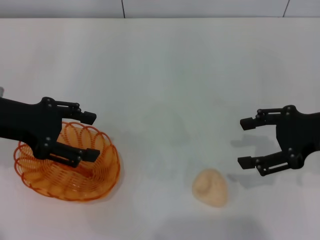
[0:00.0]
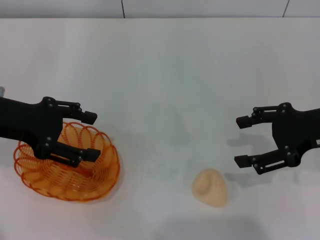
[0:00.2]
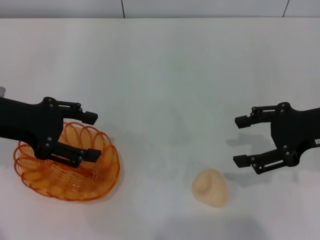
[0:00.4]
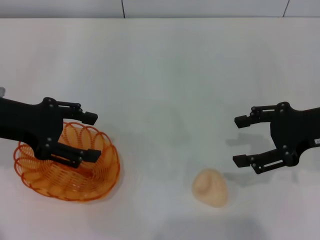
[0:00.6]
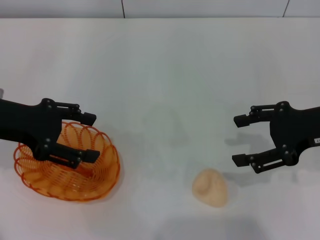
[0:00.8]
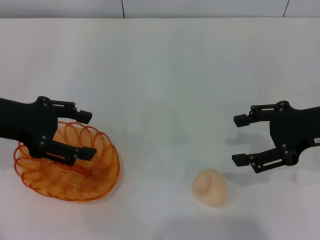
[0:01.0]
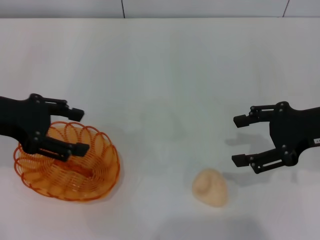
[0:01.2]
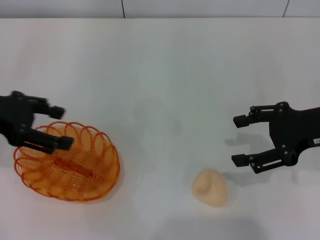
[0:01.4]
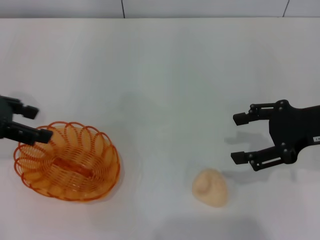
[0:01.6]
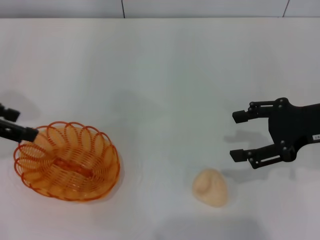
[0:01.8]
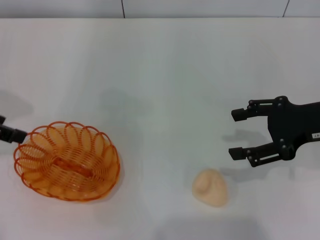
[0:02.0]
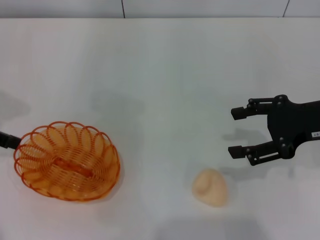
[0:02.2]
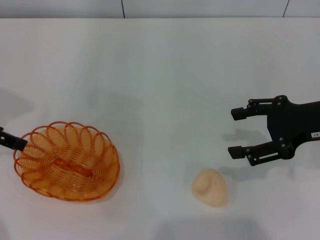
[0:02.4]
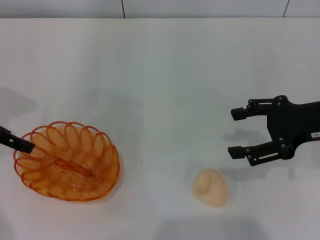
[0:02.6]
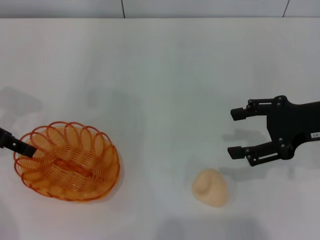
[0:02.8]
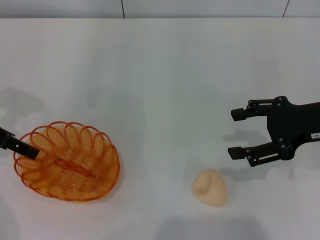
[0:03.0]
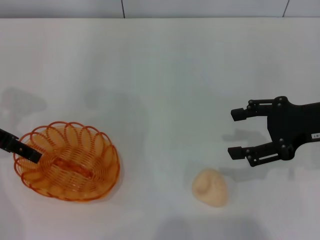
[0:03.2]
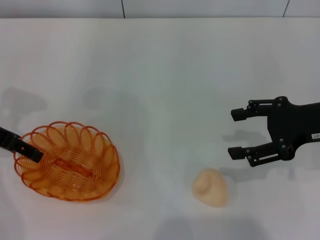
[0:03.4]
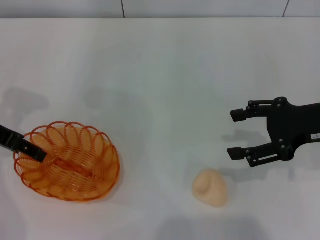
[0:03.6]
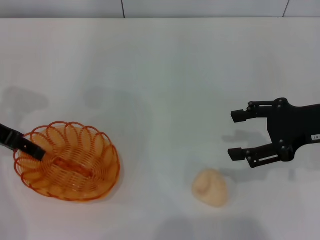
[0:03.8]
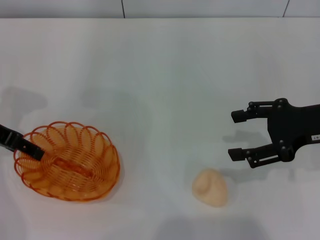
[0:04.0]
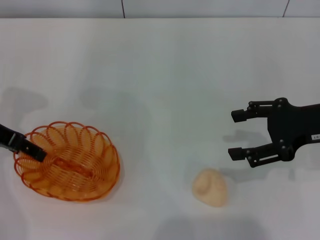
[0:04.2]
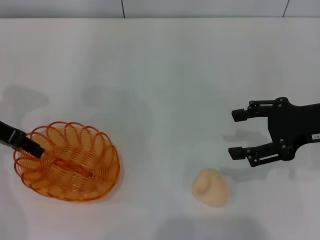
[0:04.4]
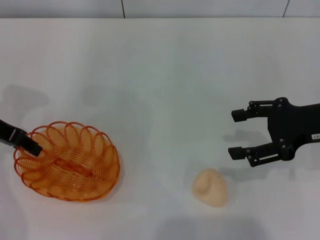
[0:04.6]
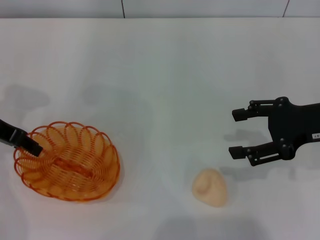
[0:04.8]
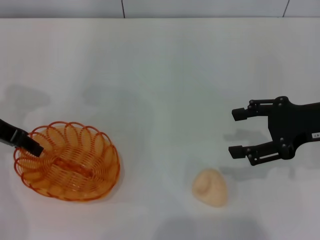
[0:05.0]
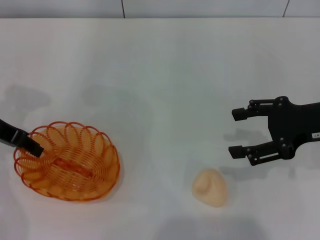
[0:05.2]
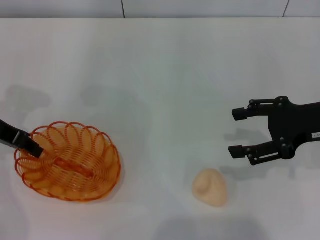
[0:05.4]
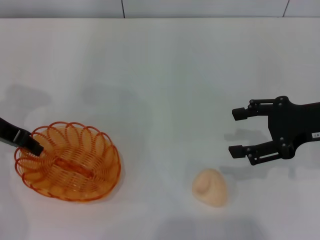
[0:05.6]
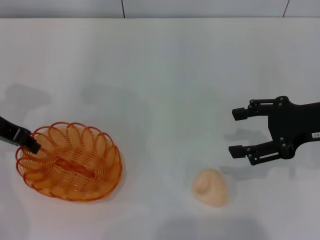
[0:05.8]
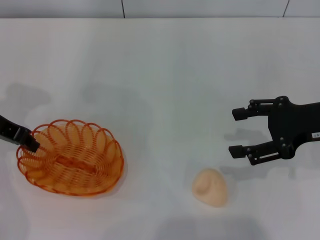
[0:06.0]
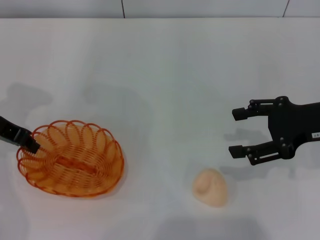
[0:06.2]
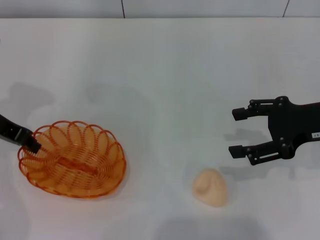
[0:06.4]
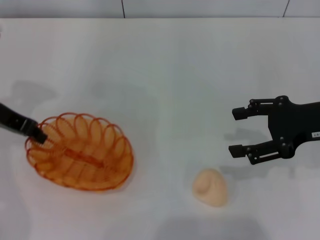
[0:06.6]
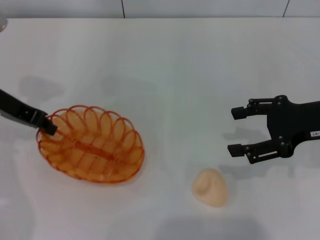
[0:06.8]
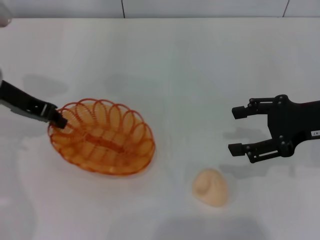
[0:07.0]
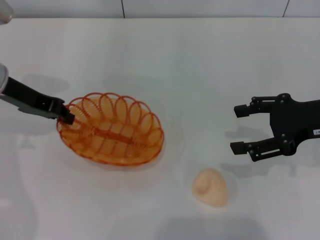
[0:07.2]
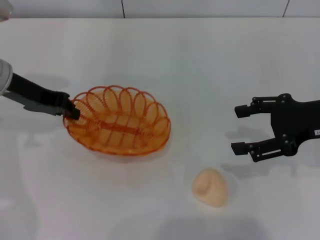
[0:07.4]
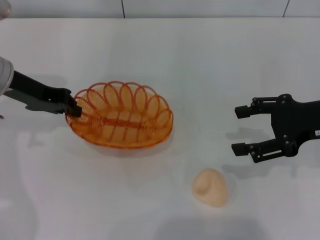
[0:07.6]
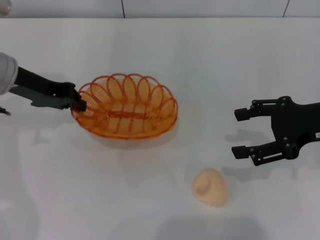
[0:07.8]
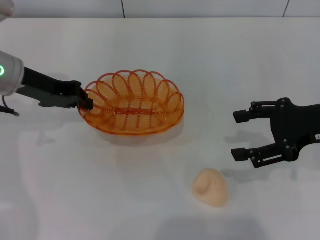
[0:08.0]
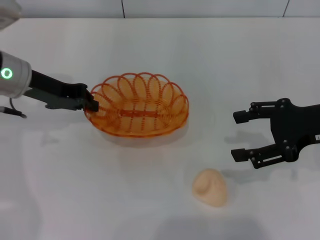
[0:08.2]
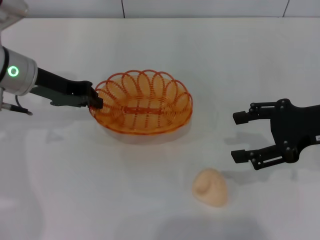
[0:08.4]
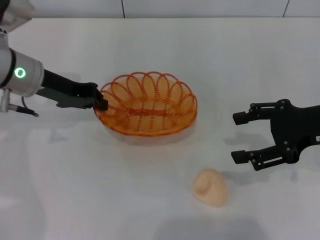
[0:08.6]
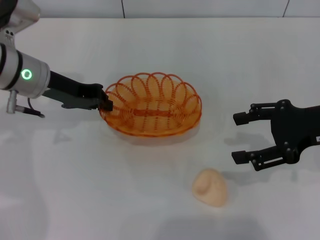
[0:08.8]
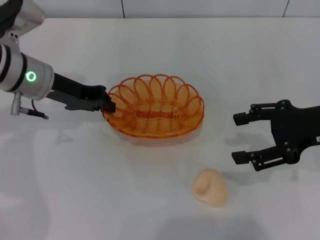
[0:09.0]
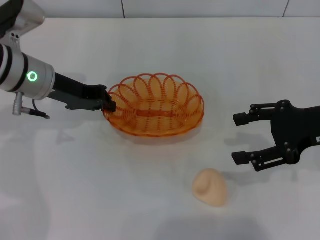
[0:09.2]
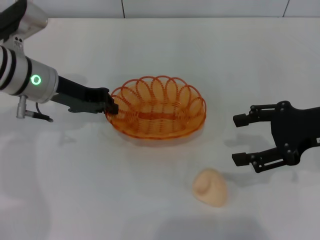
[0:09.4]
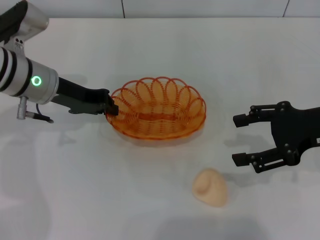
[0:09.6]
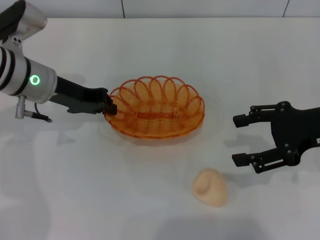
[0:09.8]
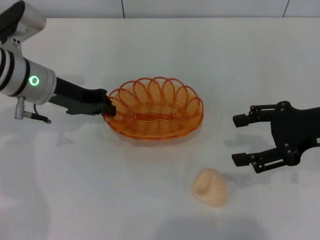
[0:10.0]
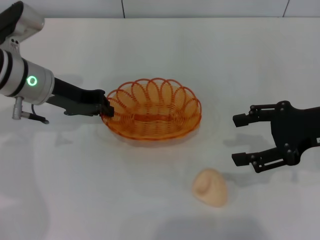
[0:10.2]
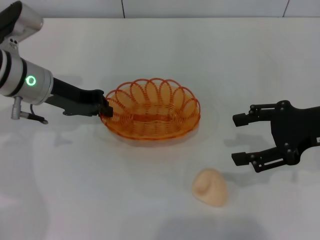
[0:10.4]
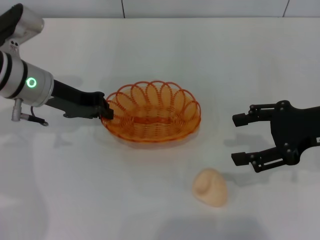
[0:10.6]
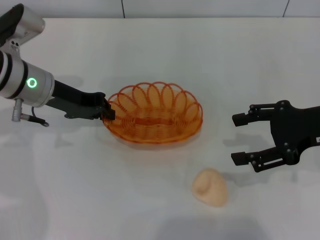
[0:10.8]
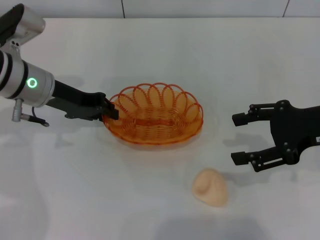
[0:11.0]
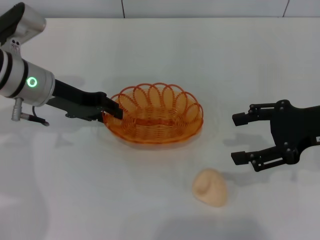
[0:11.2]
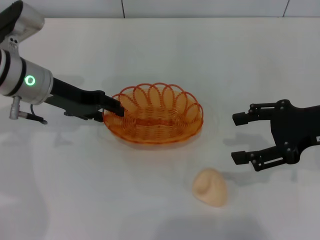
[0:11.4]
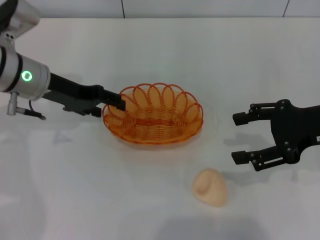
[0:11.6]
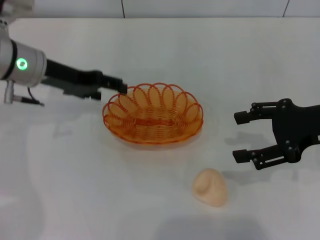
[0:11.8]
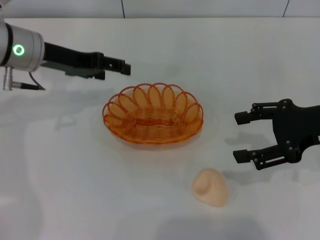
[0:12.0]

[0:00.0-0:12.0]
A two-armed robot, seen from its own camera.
Step, 0:00.0 to 0:07.4: Pick up the basket with the left gripper.
Step, 0:07.6 to 0:12.0: Place the basket in the center of view with the left gripper.
0:00.0 to 0:01.6: The left gripper ends up some 5 cm from where it was.
0:03.0 to 0:04.4: The grippers move only a little.
0:04.4 to 0:06.0: The left gripper closes.
0:07.6 to 0:09.0: The left gripper moves roughly 5 cm.
0:09.0 to 0:10.4: The two grippers keep their place.
0:10.4 to 0:12.0: The left gripper opens its fingers.

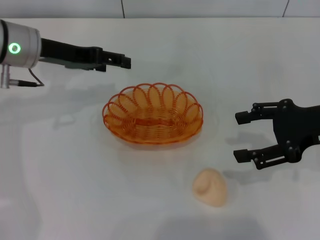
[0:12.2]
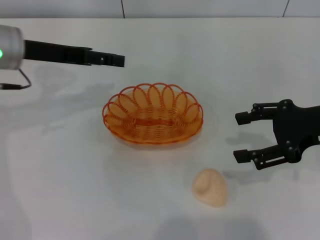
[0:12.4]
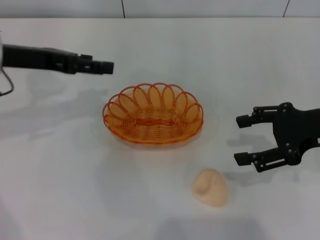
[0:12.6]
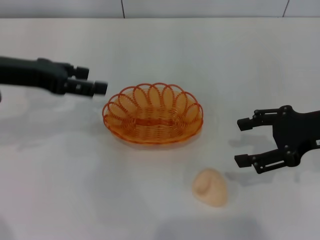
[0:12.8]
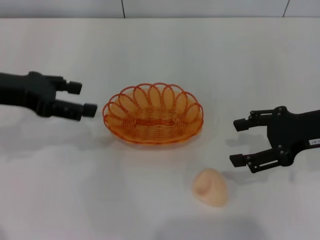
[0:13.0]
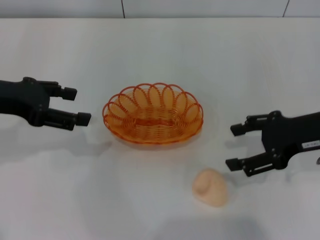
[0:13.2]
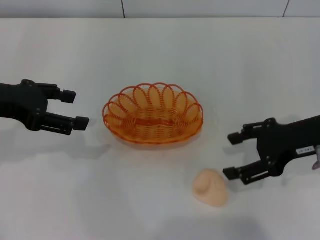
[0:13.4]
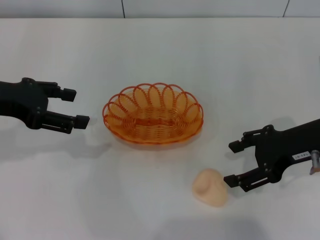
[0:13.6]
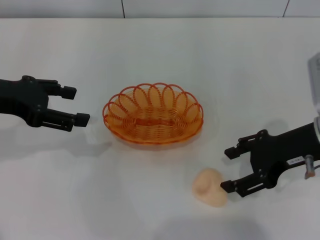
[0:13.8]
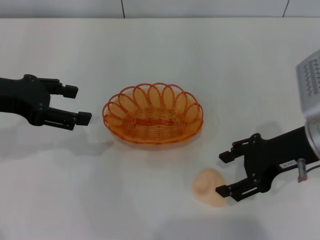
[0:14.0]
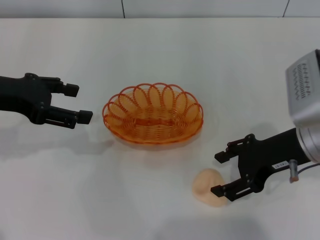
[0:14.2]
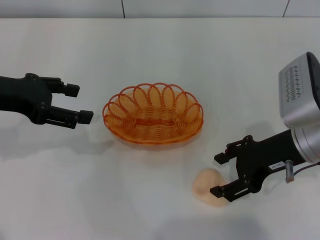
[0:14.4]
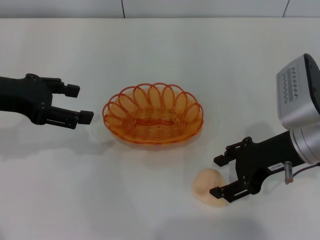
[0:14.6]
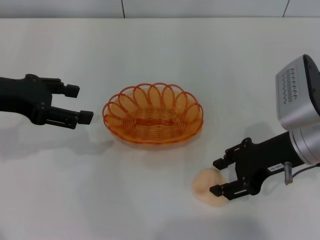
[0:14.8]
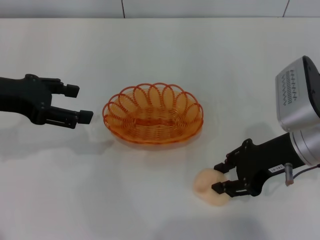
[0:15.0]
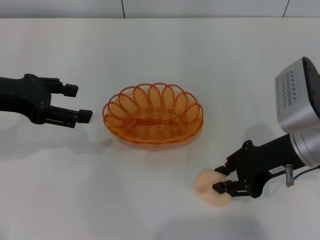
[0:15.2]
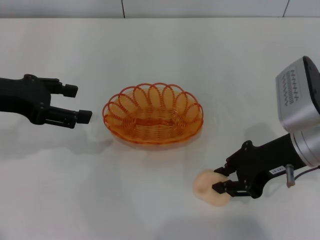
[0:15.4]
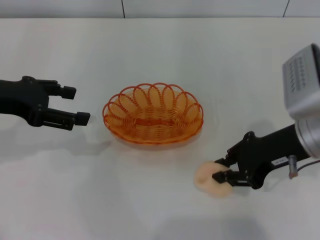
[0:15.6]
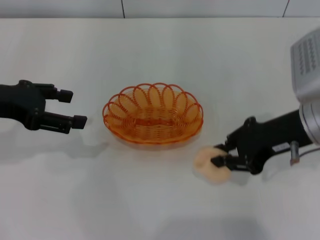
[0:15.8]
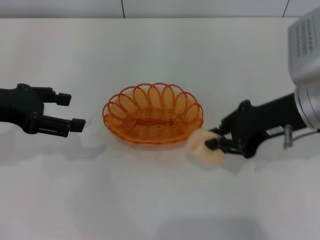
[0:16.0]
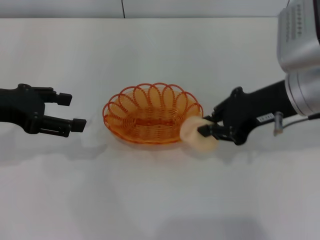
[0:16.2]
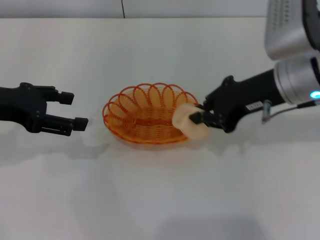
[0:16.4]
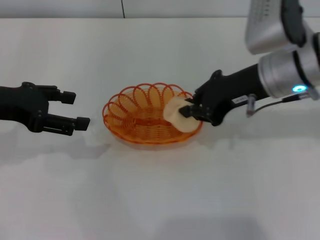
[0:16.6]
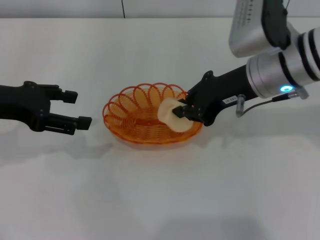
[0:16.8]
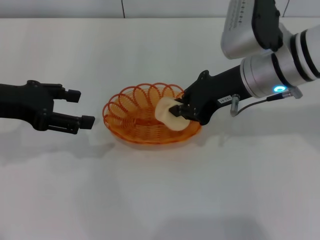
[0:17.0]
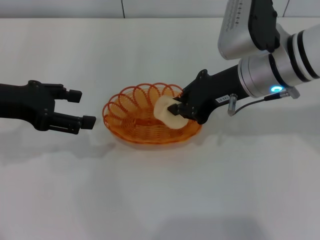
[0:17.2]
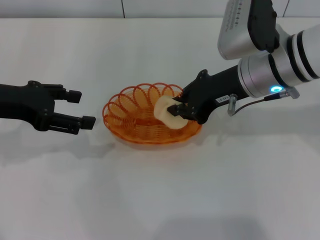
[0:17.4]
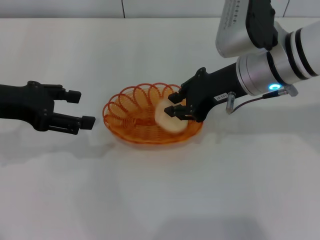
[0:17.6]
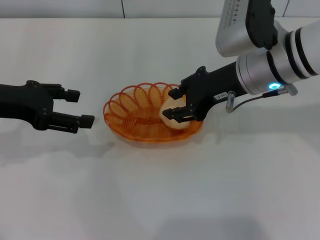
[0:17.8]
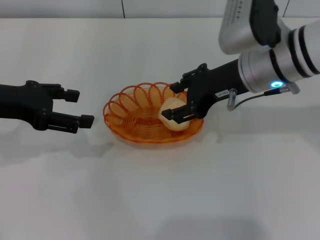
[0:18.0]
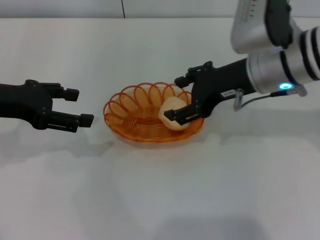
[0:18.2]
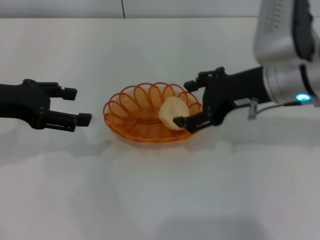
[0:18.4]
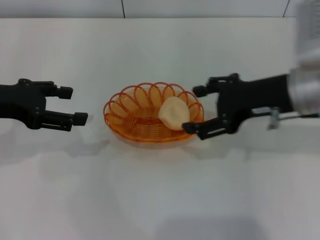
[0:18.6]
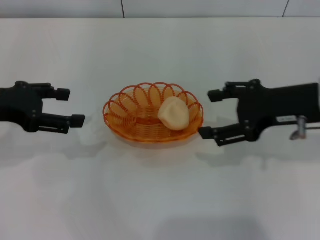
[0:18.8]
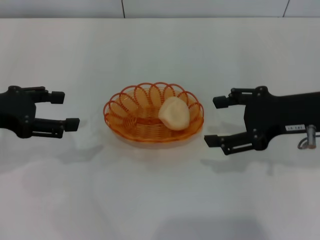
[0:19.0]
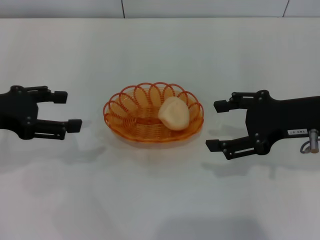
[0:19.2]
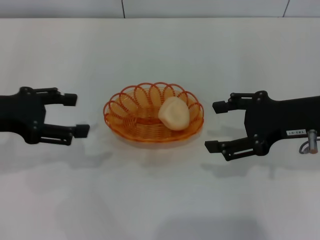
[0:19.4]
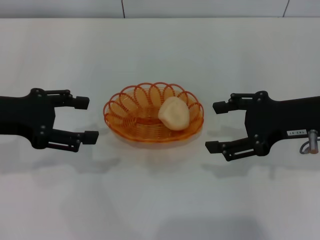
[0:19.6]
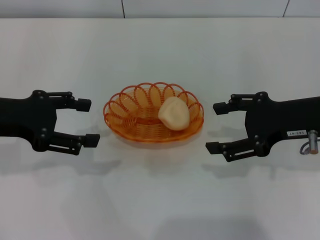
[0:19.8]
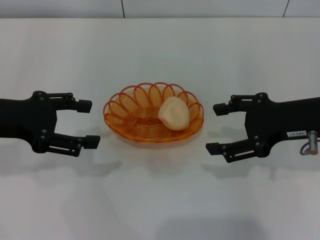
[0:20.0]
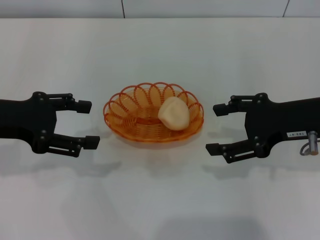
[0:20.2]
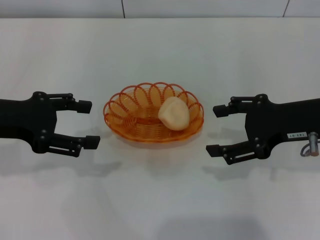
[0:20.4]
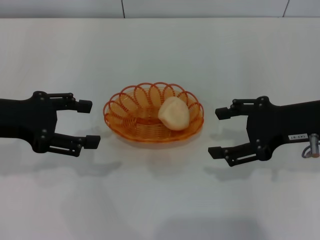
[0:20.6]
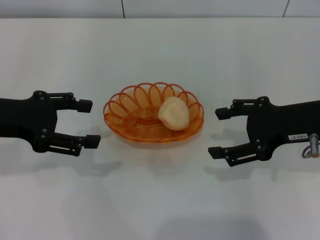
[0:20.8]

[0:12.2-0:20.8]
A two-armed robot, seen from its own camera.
Step, 0:12.2 to 0:15.8: Pick up the egg yolk pastry with the right gripper.
Step, 0:16.2 to 0:18.6: Place the egg yolk pastry into the basket with the right gripper.
0:12.2 to 0:13.6: The left gripper is displaced backward and to the left by approximately 10 cm.
0:13.6 to 0:15.0: The right gripper closes up.
0:15.0 to 0:16.6: The right gripper travels upward and forward by approximately 10 cm, and closes up.
0:16.6 to 0:18.0: The right gripper opens.
0:18.0 to 0:19.4: The right gripper shifts approximately 10 cm to the right and backward, and opens up.
0:19.4 to 0:20.8: There are only small adjustments of the grippers.
